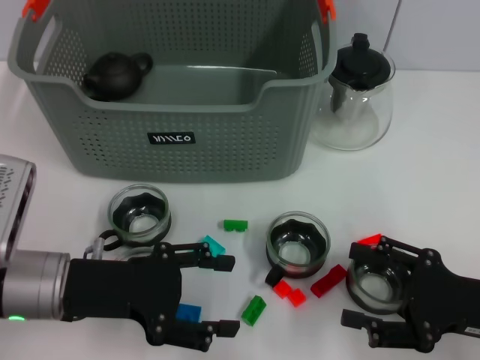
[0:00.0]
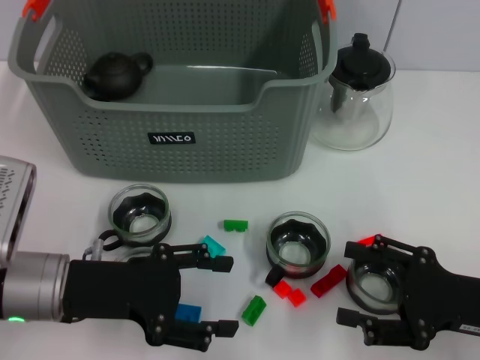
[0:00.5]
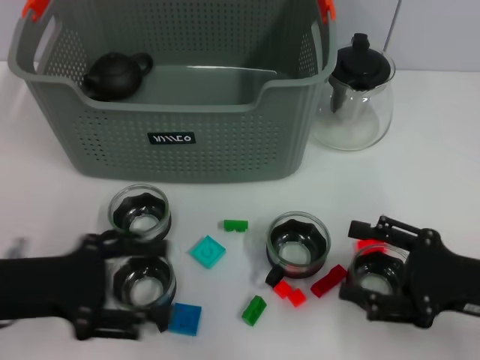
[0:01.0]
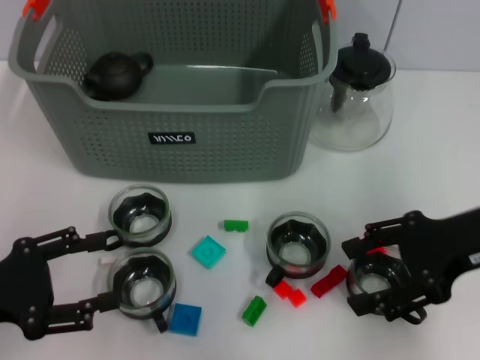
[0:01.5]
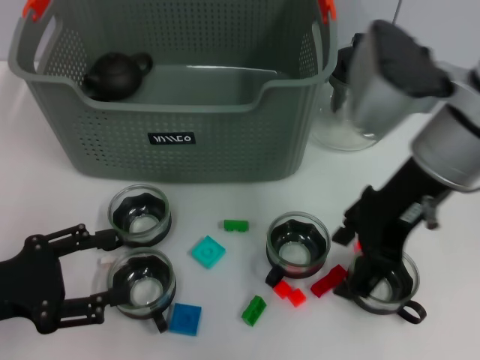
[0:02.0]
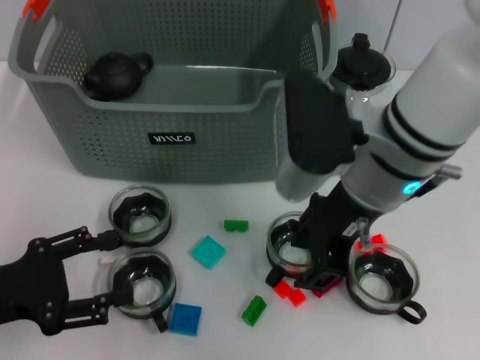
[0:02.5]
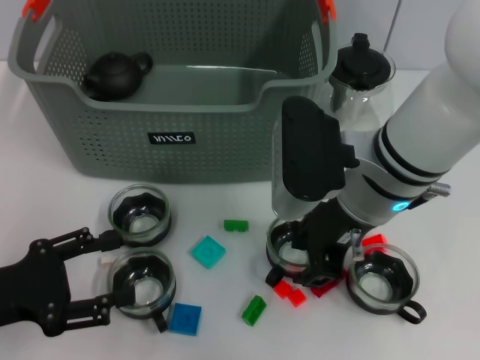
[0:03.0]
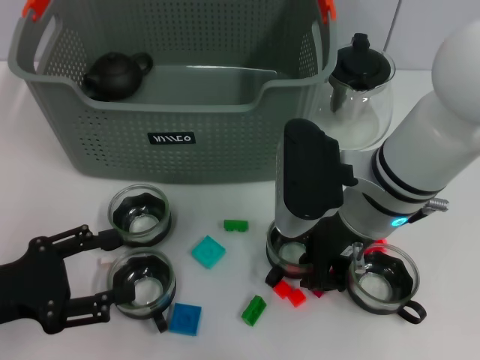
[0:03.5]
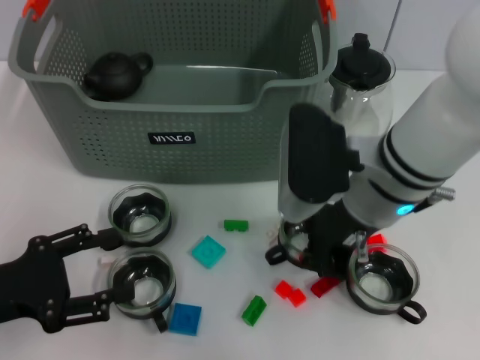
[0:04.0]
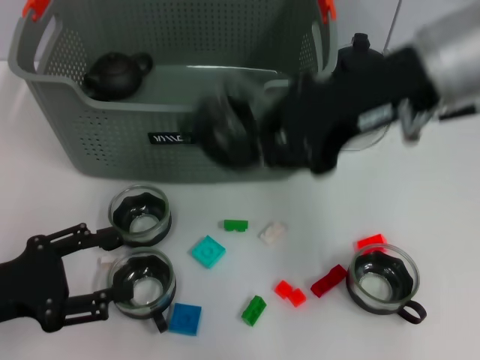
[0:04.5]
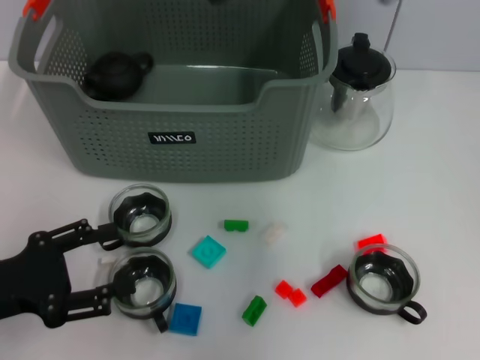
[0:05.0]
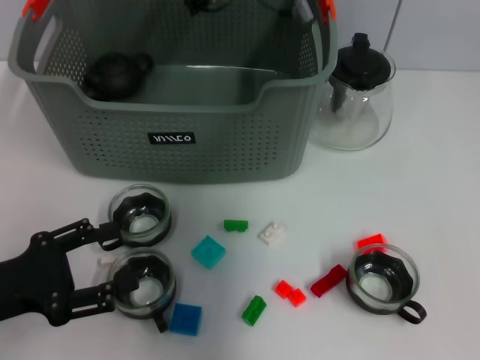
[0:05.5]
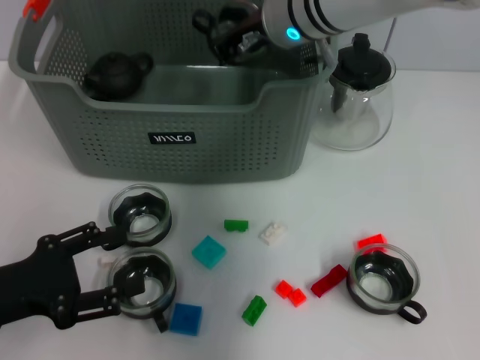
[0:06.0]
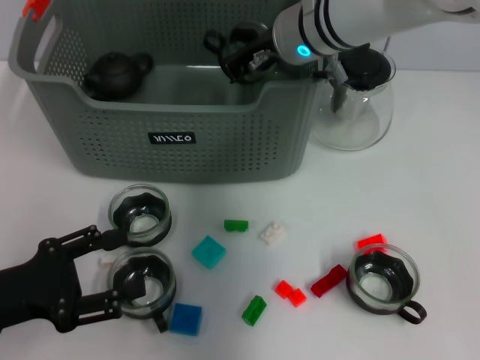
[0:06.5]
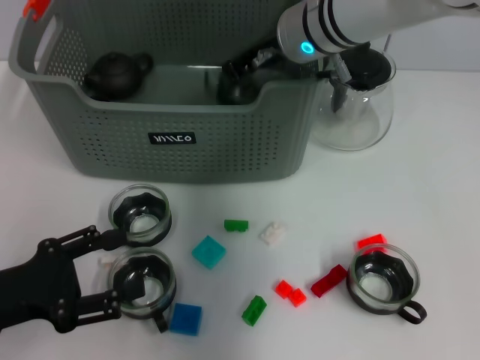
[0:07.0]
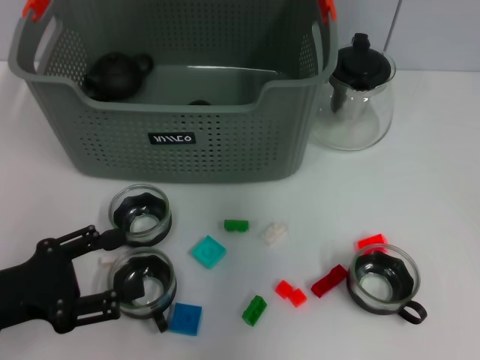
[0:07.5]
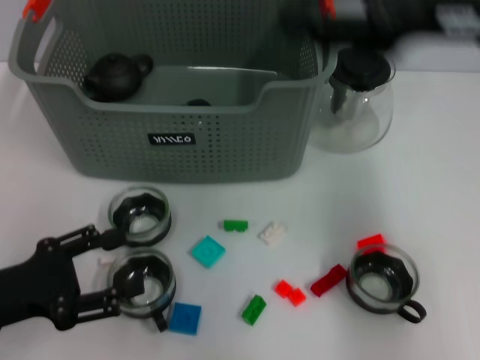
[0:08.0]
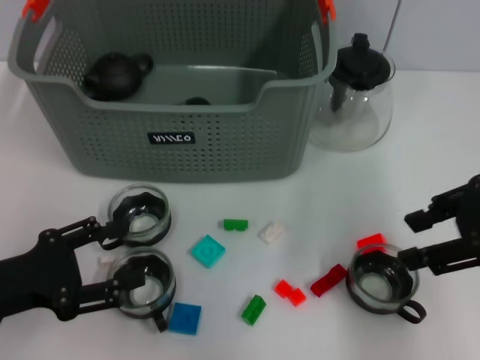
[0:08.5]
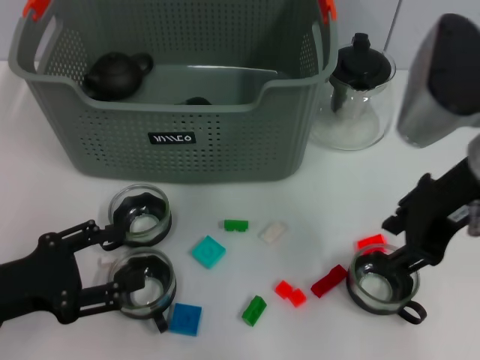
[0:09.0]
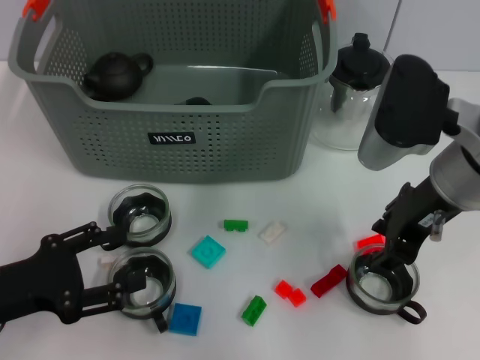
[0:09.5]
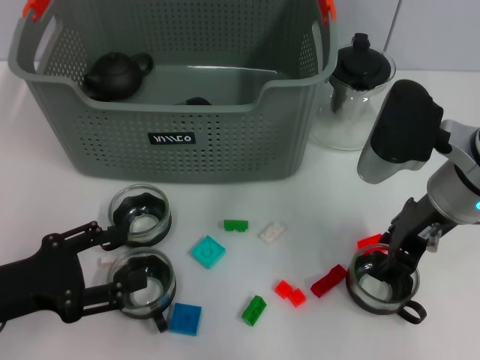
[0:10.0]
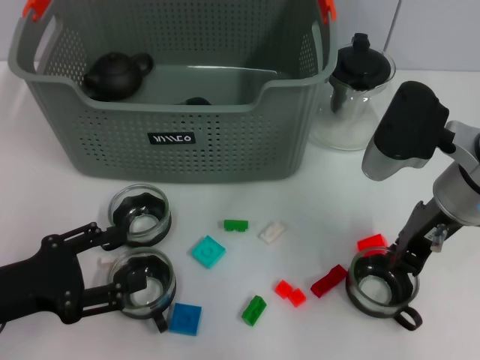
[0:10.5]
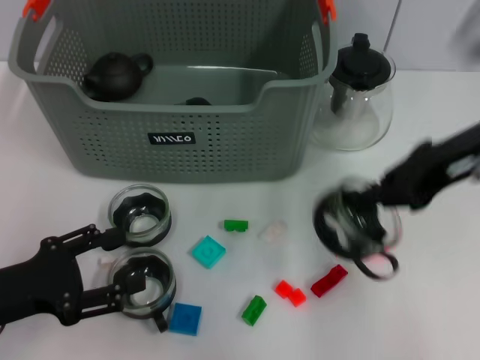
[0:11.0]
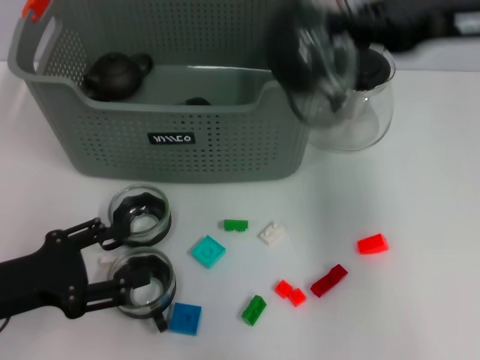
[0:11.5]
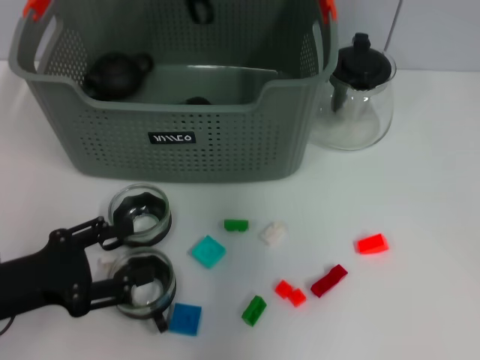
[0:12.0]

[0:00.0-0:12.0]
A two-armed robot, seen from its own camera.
Task of the whole recording: pick up the teacup on the table and place it into the storage bin, pick up the block on the table and place it into the storage bin.
Step, 0:00.0 to 0:03.5: Grasp the cup with right gripper.
Step, 0:04.0 to 0:07.5: Place the cup in the storage box with right gripper.
Step, 0:08.0 to 0:10.5: Grasp the cup with right gripper.
0:00.0 to 0:02.0: The right gripper travels upward, to the left and forward by approximately 25 cm; the left gripper is displaced to the left by some 10 cm.
0:02.0 to 0:04.0: The right gripper moves downward, approximately 5 cm, and closes.
0:04.0 to 0:06.0: The right gripper is displaced forward and to the left by some 15 cm, and travels upward and back again, some 15 cm each way.
0:06.0 to 0:08.0: The right gripper is displaced to the right, backward and upward by roughly 25 cm, and opens up.
0:08.0 to 0:10.0: The right gripper travels downward by some 15 cm.
0:10.0 to 0:12.0: The right gripper travels upward, forward and to the left by about 20 cm, and closes up.

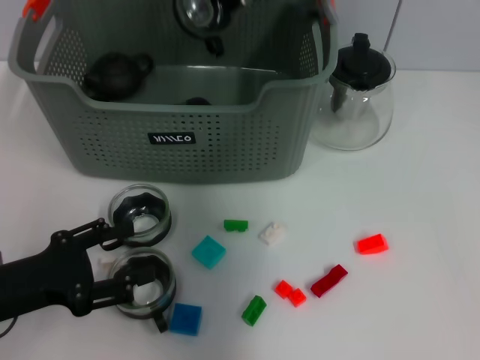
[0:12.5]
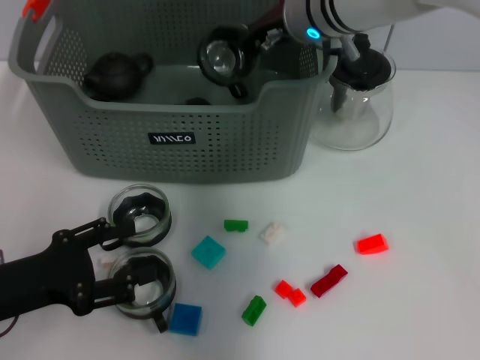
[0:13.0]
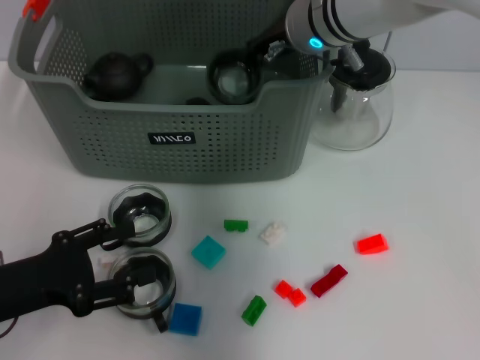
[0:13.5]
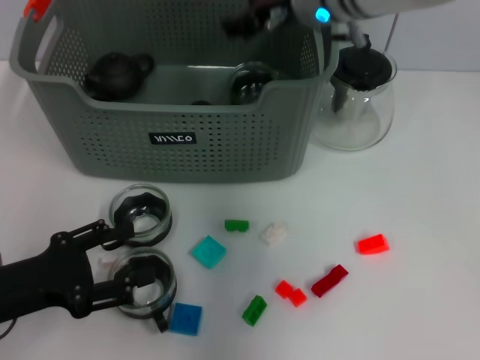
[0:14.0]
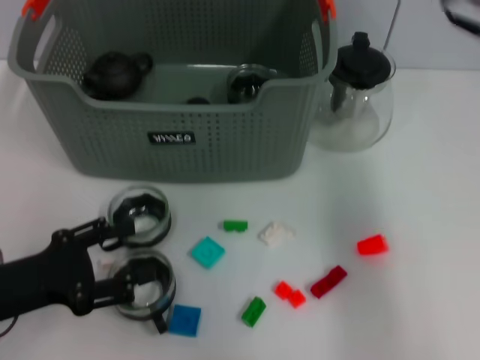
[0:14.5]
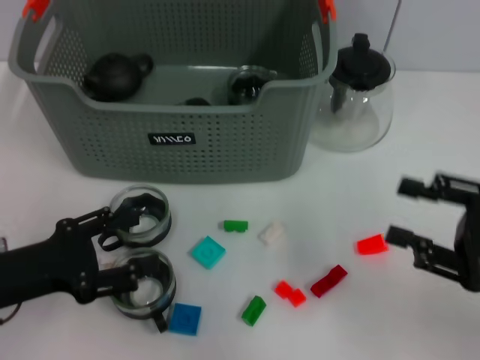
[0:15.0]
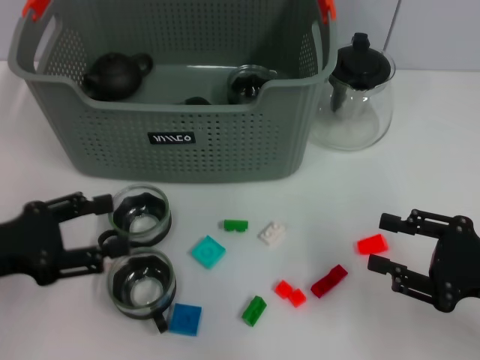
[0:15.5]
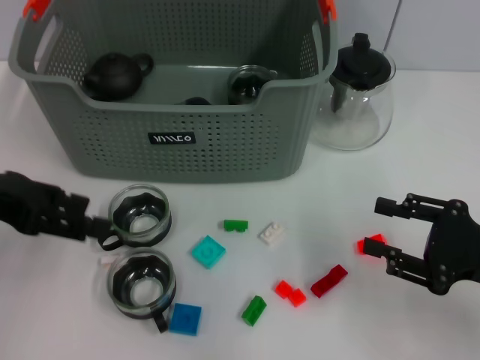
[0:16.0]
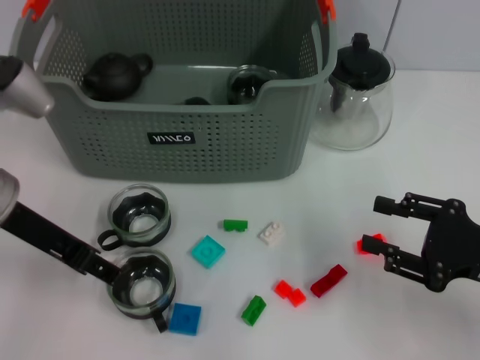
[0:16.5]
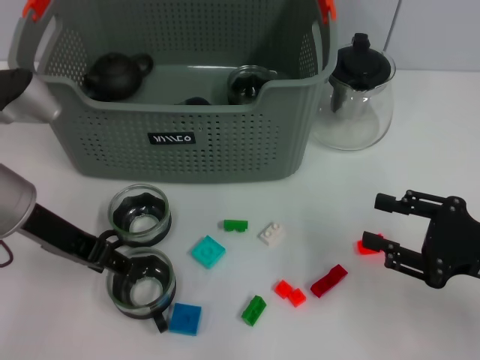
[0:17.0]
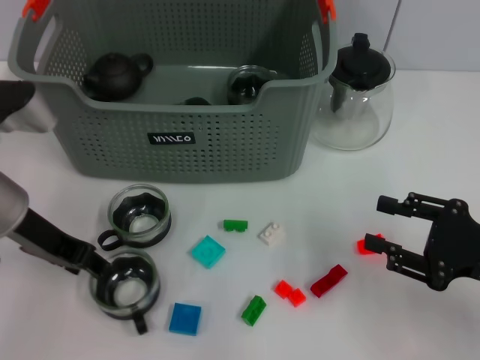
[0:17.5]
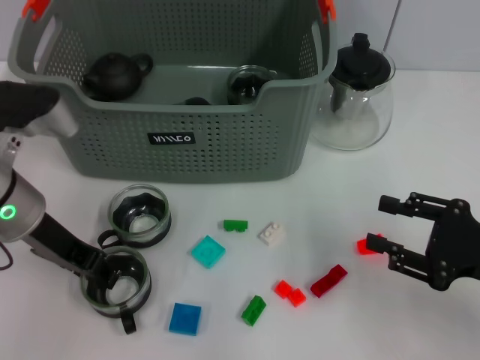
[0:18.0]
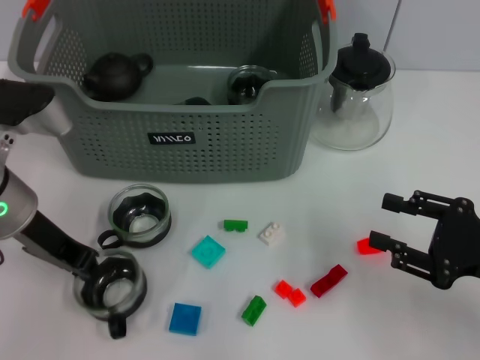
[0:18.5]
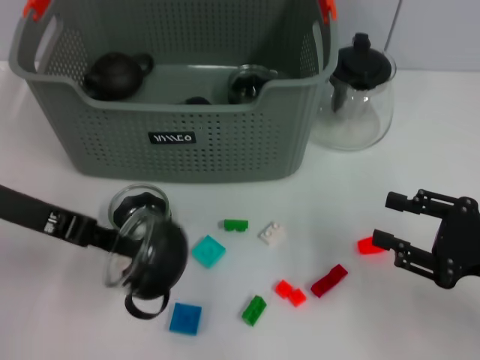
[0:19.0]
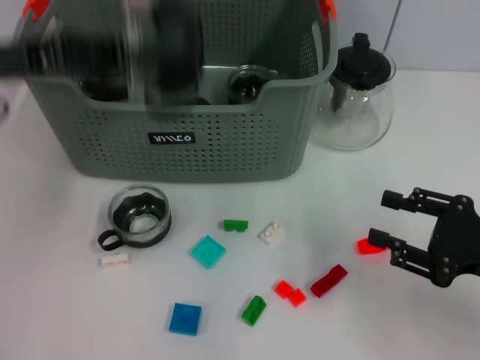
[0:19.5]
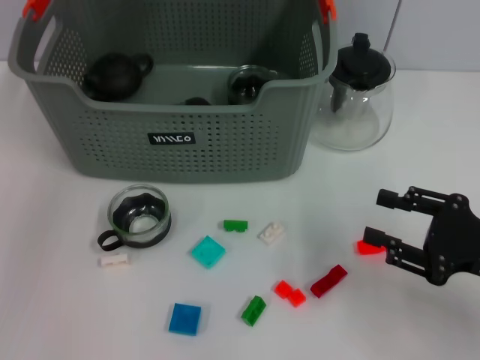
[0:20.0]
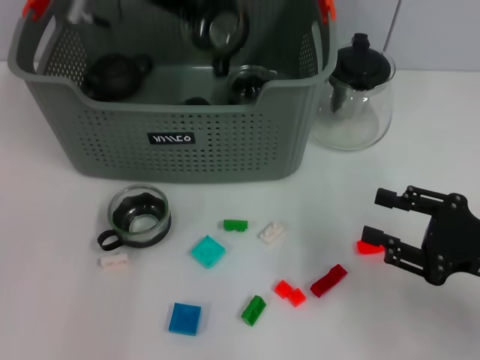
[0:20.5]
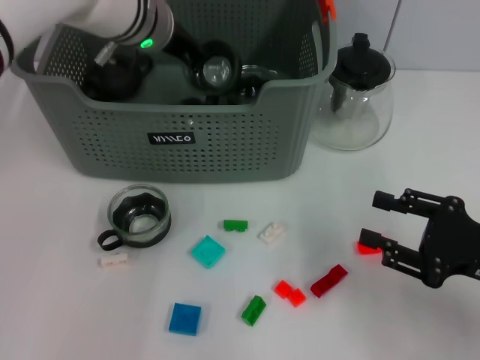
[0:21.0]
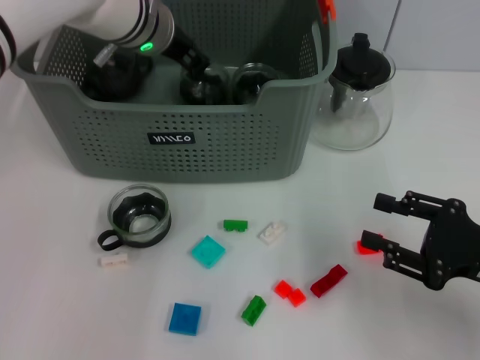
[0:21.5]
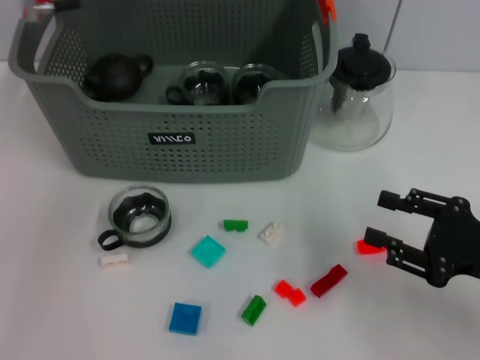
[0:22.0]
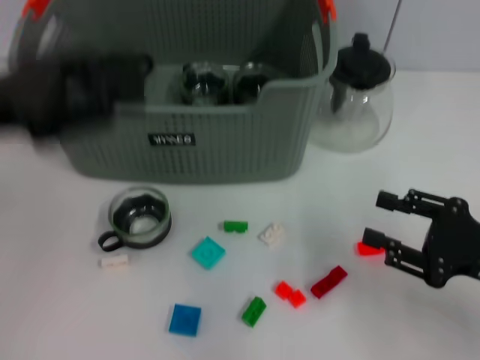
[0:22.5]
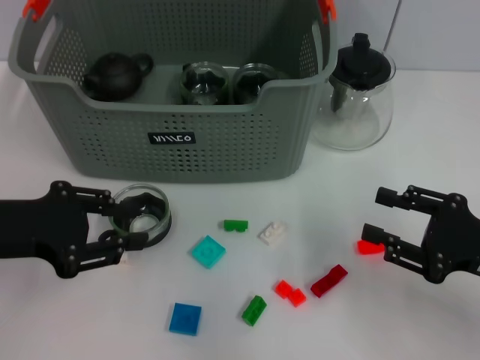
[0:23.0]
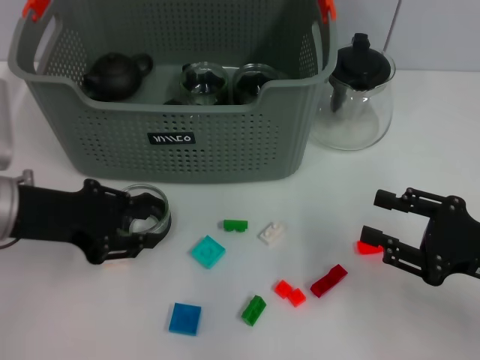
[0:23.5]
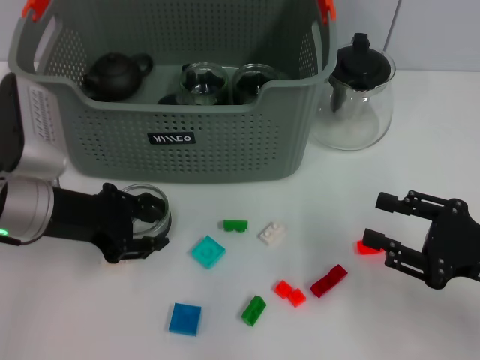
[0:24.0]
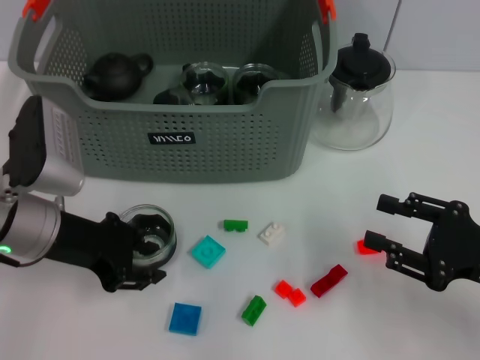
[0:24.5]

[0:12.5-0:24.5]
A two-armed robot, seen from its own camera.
Task of the whole recording: pick up the teacup on the table and place it into the storage bin, pick up the block on the table and place it into the storage bin.
Step, 0:12.5 to 0:14.5: Place the cup in the storage box with right gripper.
Step, 0:15.0 to 0:18.0: Grasp the cup with left gripper.
Step, 0:18.5 to 0:21.5: Place the cup in the storage box with left gripper.
0:12.5 to 0:14.5: The right gripper travels to the right and backward by about 20 cm, and opens its fingers.
0:14.5 to 0:16.5: The right gripper is displaced downward, backward and to the right by approximately 25 cm, while the left gripper goes roughly 15 cm upward, forward and to the right.
0:16.5 to 0:18.5: The left gripper closes its fingers.
0:18.5 to 0:20.5: The left gripper shifts approximately 20 cm forward, upward and to the right.
0:20.5 to 0:22.5: The left gripper goes roughly 25 cm backward and to the left, and opens.
0:22.5 to 0:24.5: The left gripper travels downward and to the right by approximately 10 cm.

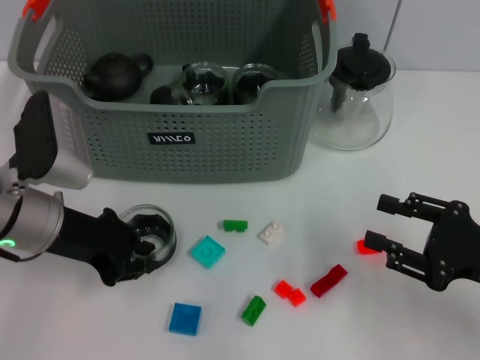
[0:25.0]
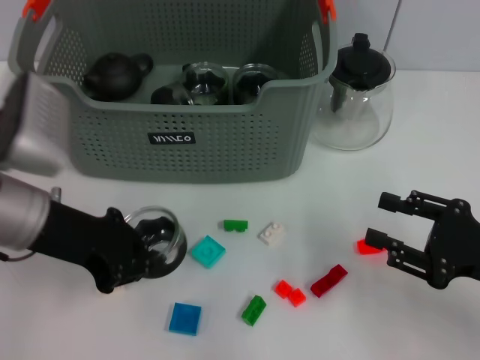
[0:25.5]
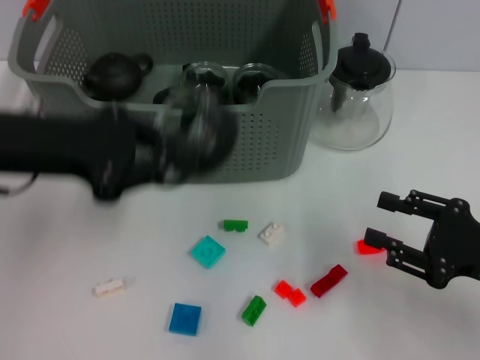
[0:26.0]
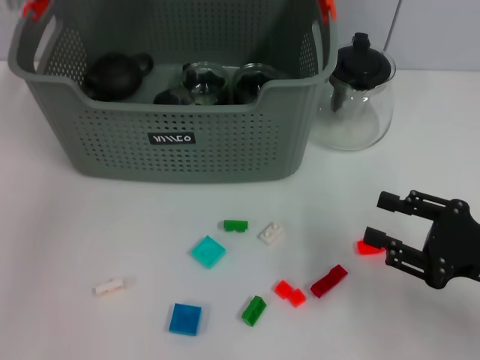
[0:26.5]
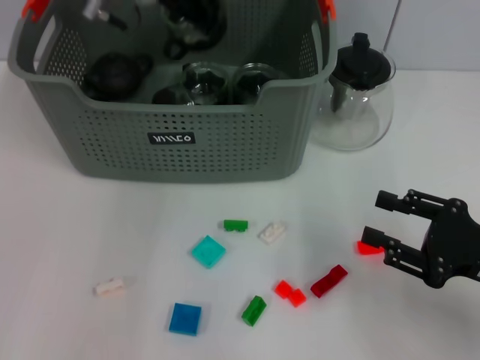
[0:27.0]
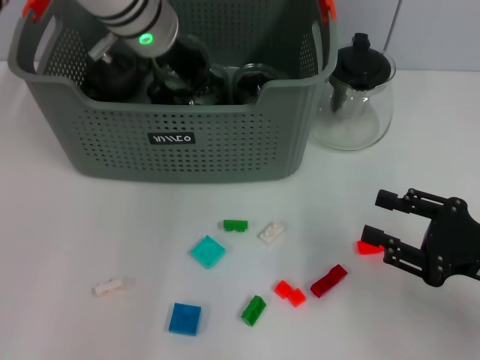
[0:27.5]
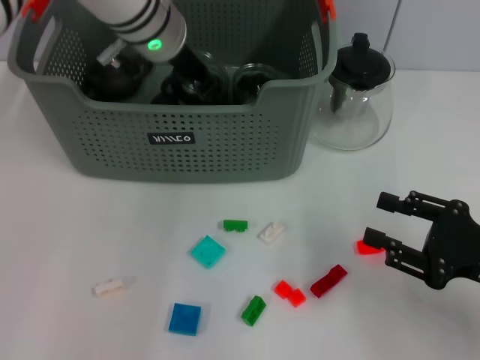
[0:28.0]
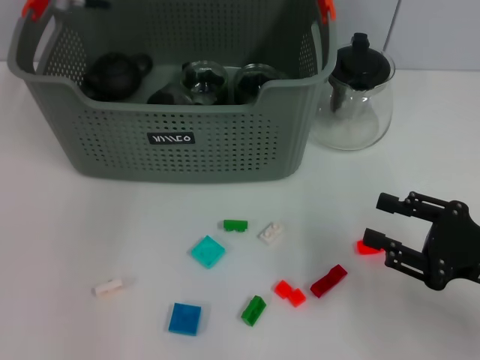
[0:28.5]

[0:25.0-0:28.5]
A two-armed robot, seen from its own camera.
Task of the whole recording: pick up the teacup on the table and place it into the storage bin, pick up the block on the table and place it into the storage bin.
Step, 0:25.5 to 0:28.0: Place the cup in the storage box with left gripper.
0:25.0 to 0:27.0: The left gripper goes about 25 cm forward, upward and to the right.
0:27.0 to 0:28.5: The left gripper moves about 5 cm, and opens up.
